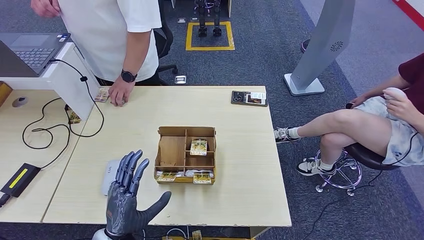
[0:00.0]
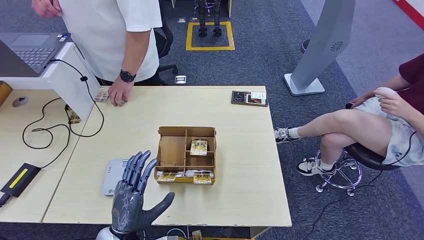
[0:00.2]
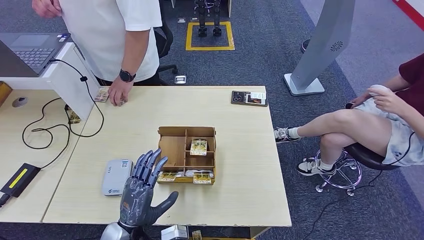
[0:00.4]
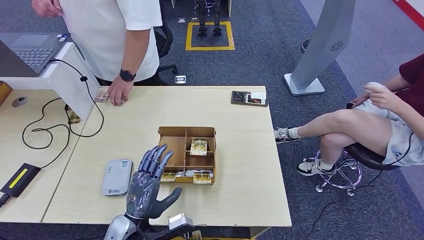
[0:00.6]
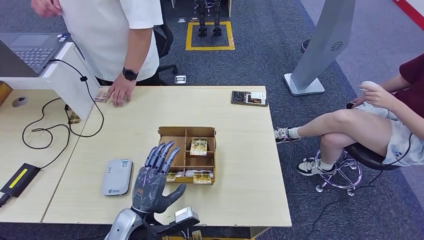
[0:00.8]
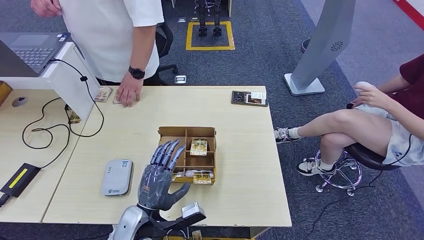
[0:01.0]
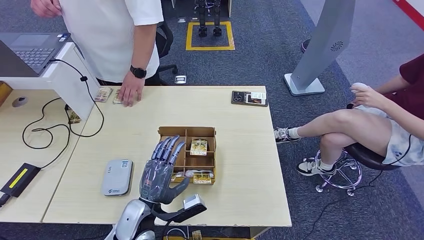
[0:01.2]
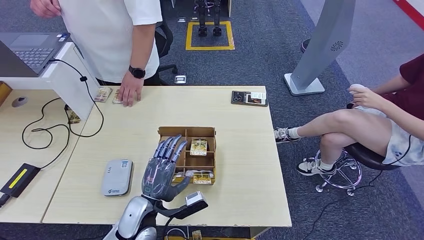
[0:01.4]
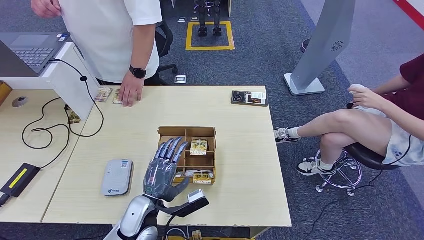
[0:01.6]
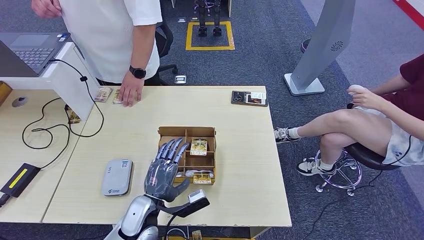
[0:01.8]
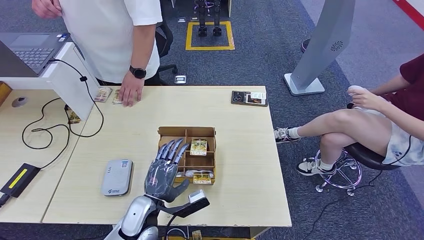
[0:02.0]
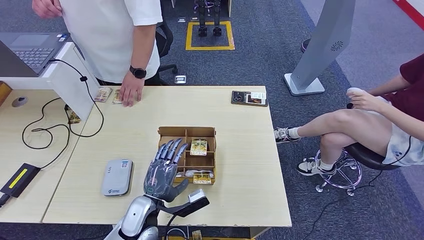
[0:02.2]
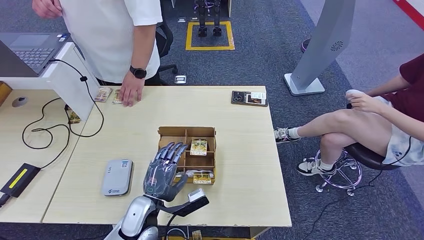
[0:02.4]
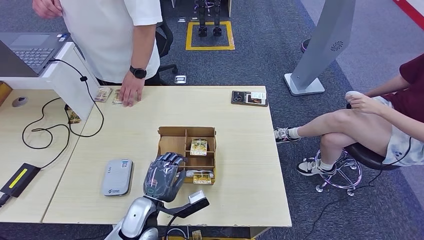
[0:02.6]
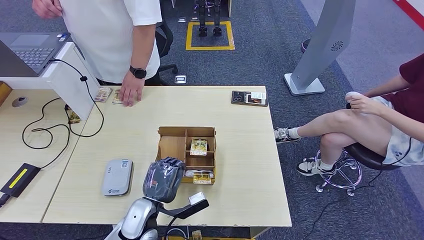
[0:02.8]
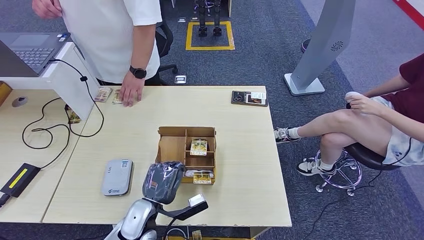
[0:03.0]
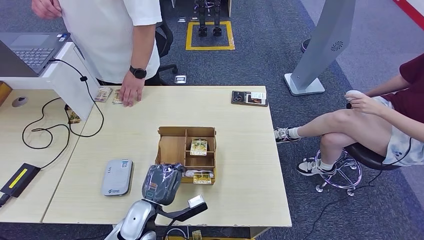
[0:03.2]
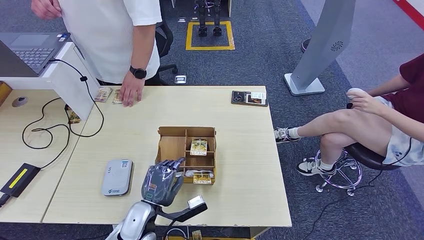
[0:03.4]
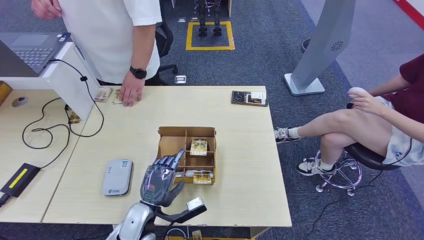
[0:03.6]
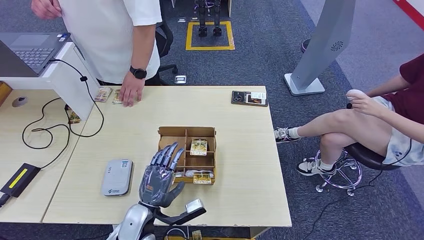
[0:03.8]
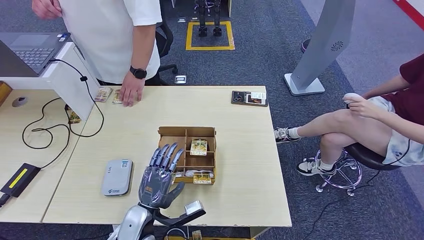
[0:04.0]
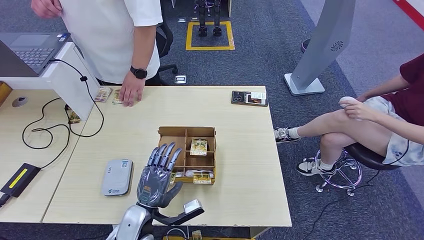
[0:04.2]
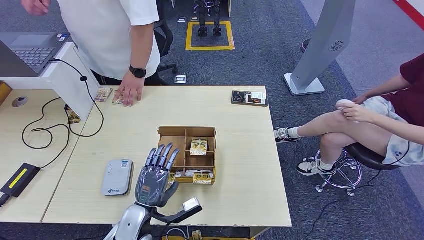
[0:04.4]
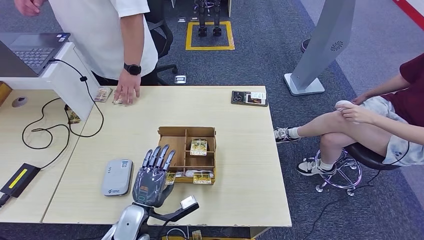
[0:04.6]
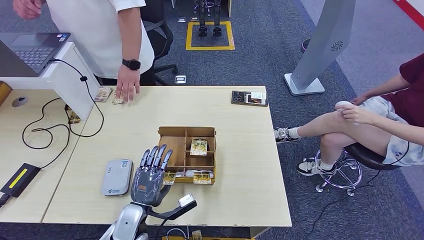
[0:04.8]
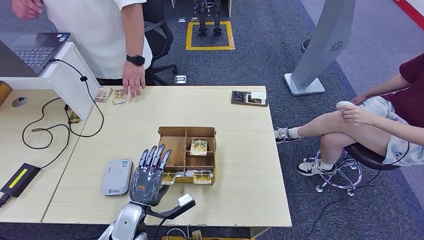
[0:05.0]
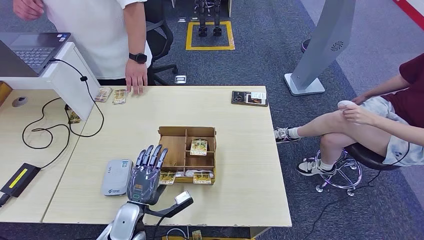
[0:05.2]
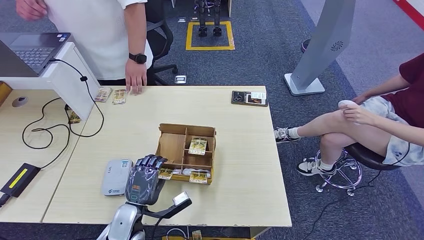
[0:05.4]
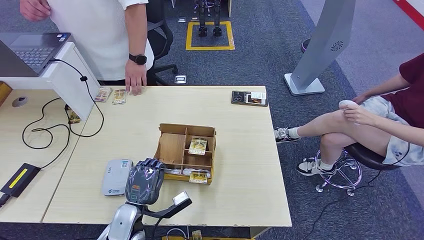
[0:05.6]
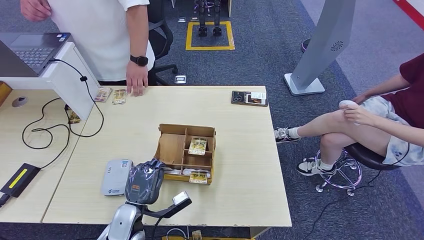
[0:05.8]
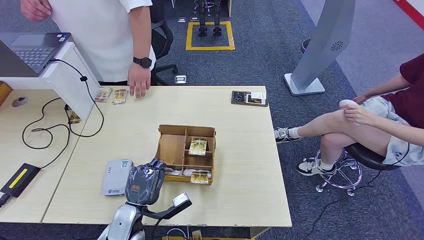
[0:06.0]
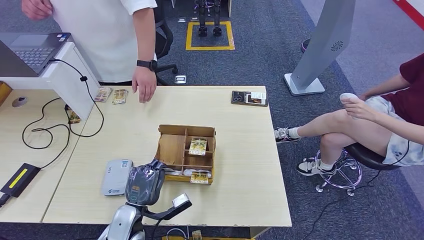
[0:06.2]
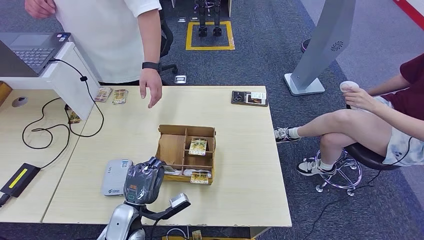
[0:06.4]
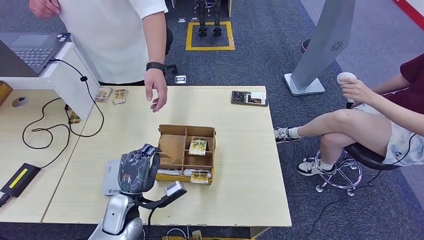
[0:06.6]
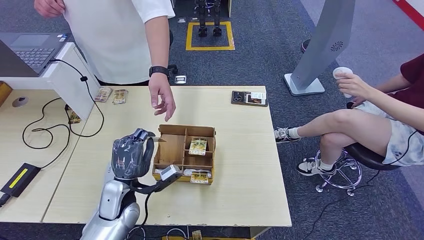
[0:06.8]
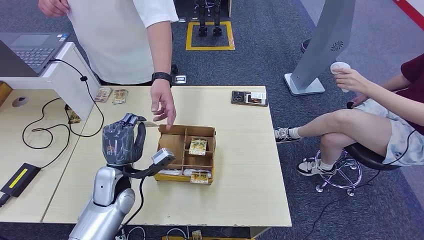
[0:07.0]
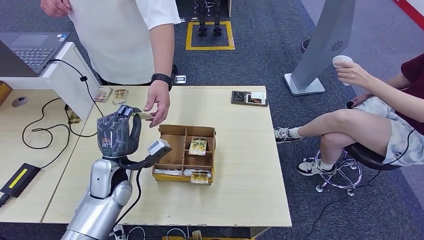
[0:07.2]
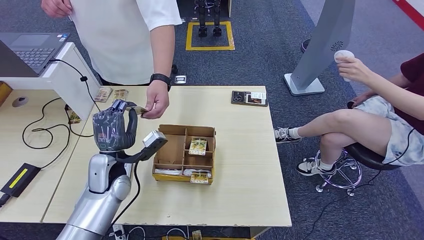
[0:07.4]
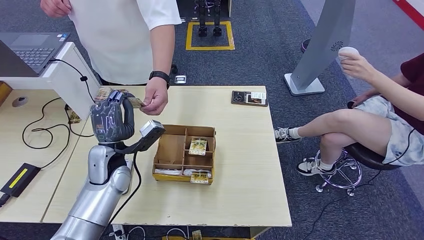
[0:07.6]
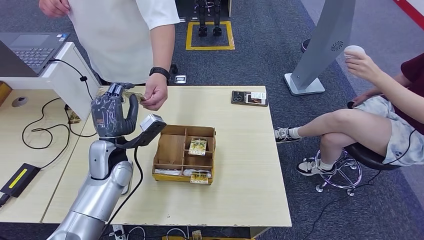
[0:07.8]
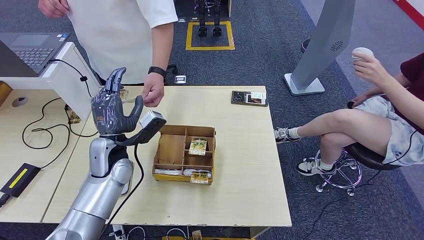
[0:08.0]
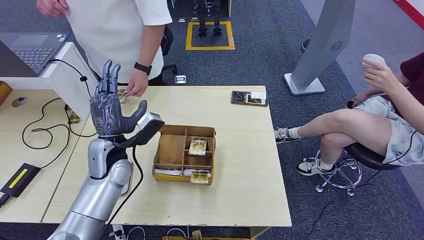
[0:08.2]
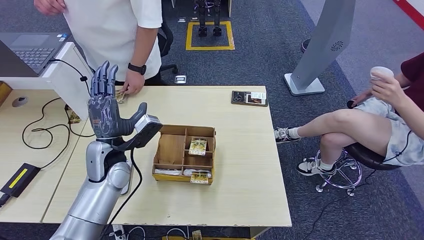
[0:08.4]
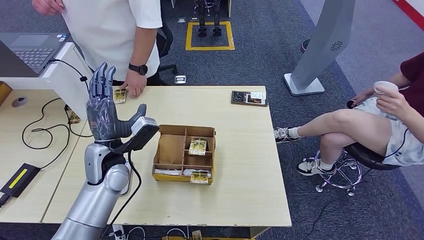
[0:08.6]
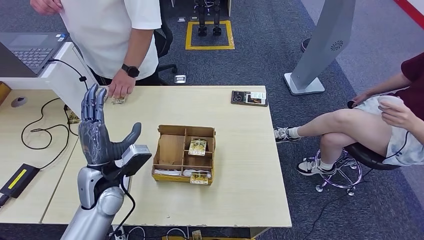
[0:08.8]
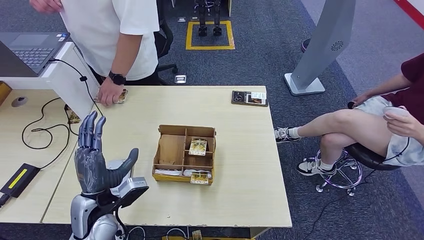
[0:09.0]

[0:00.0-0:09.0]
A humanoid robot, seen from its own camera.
Step, 0:00.0 to 0:06.6: Pick up the room key from the key card box.
Step, 0:06.8 to 0:09.0: Hand the room key to the person.
0:00.0 to 0:01.6: The left hand travels forward and to the right by some 10 cm.
0:01.6 to 0:06.0: The hands make only small movements.
0:06.0 to 0:07.6: The left hand shifts approximately 15 cm upward and forward.
0:07.6 to 0:09.0: The left hand heads backward, covering roughly 10 cm.
